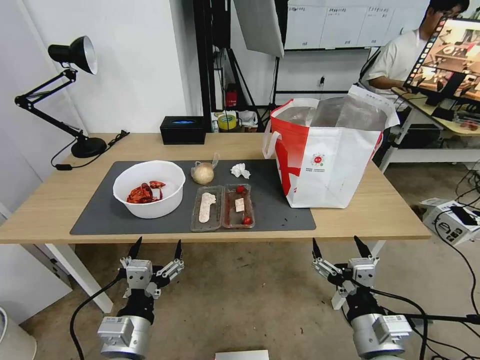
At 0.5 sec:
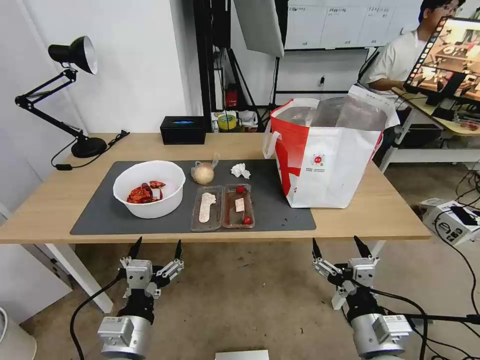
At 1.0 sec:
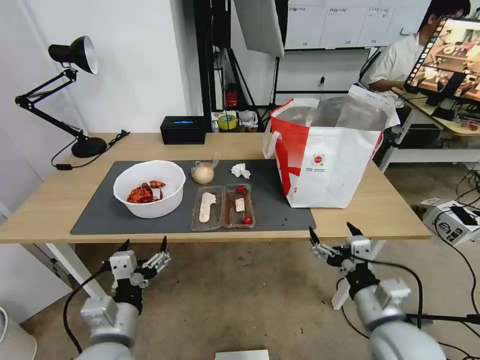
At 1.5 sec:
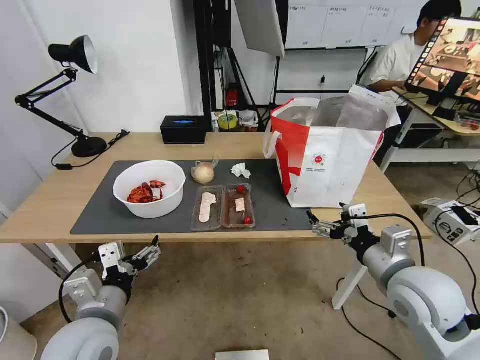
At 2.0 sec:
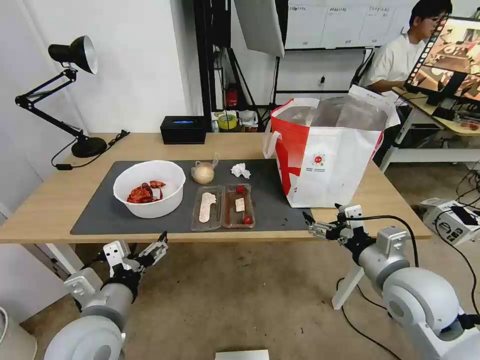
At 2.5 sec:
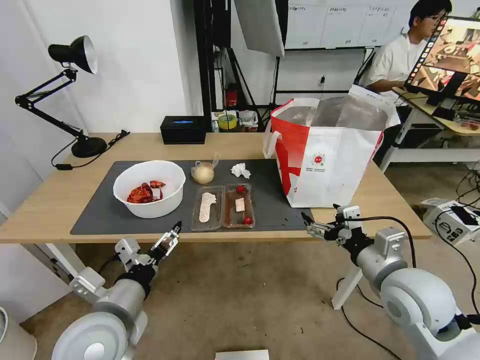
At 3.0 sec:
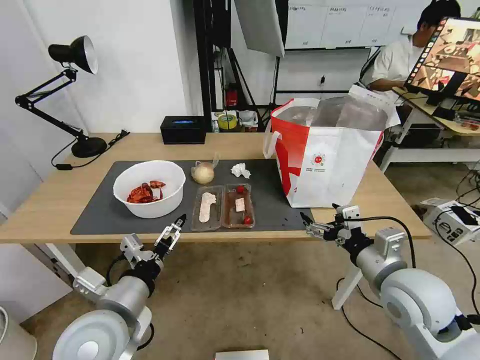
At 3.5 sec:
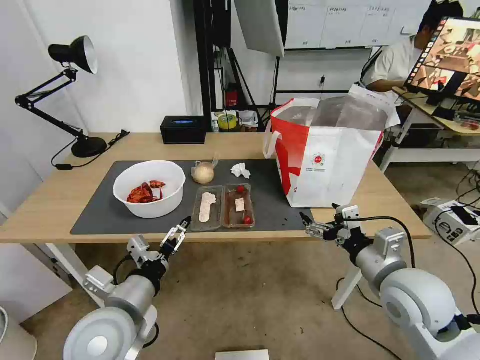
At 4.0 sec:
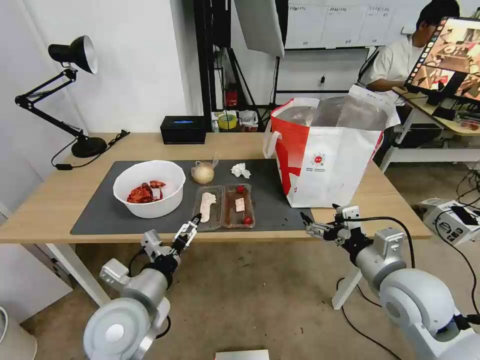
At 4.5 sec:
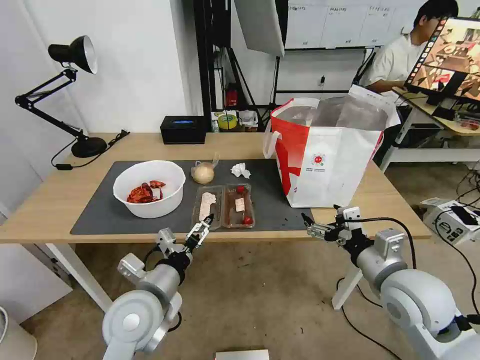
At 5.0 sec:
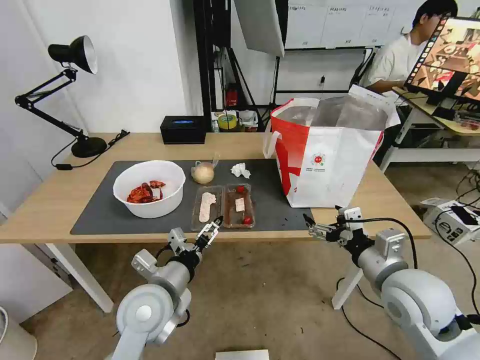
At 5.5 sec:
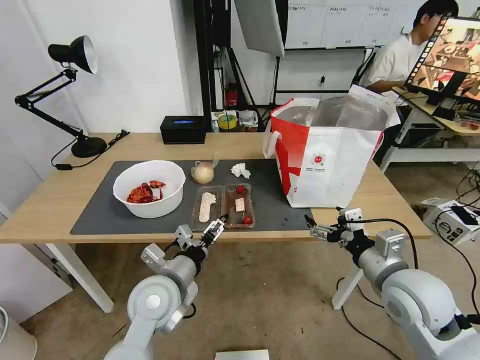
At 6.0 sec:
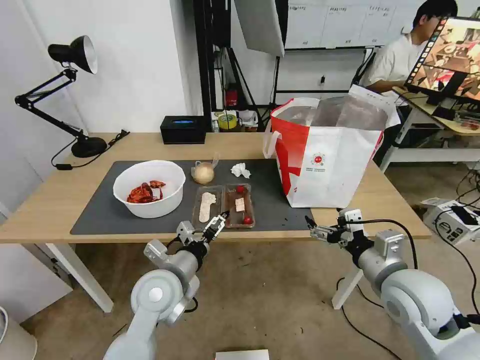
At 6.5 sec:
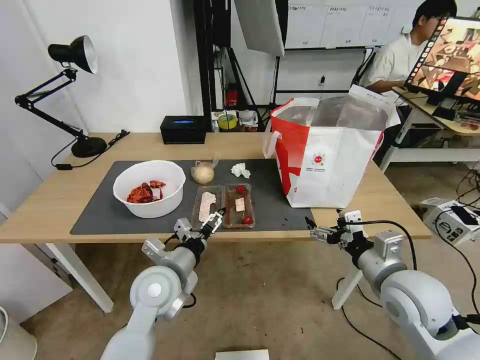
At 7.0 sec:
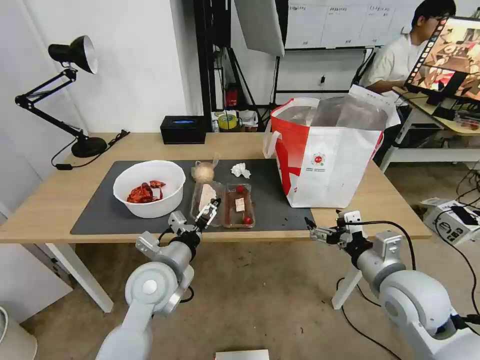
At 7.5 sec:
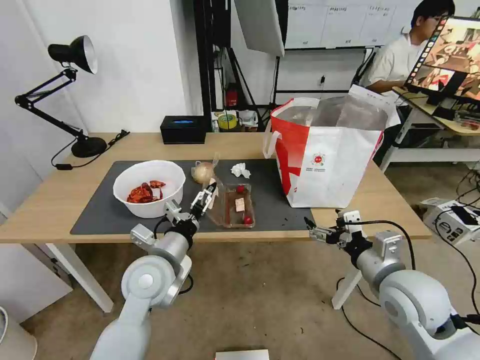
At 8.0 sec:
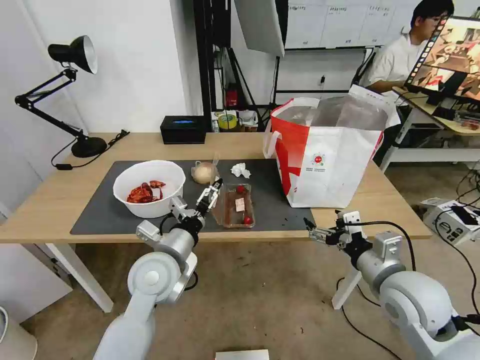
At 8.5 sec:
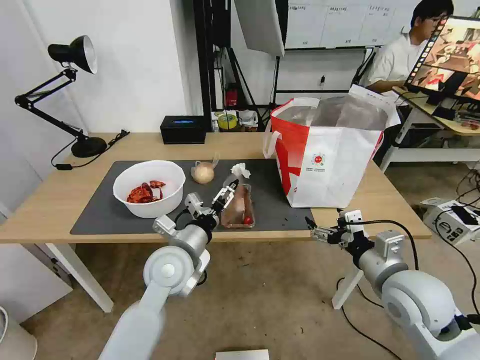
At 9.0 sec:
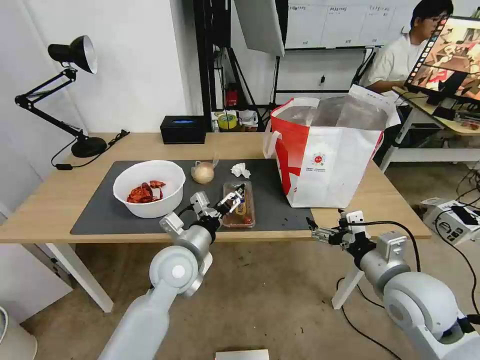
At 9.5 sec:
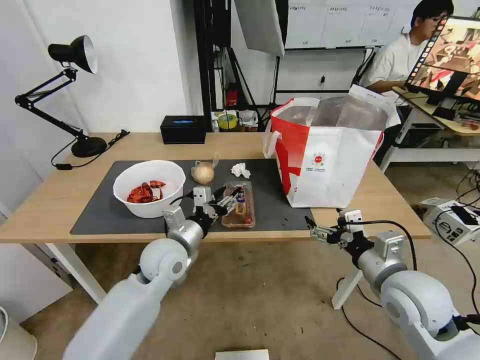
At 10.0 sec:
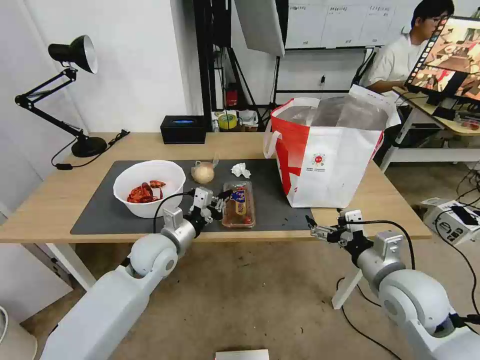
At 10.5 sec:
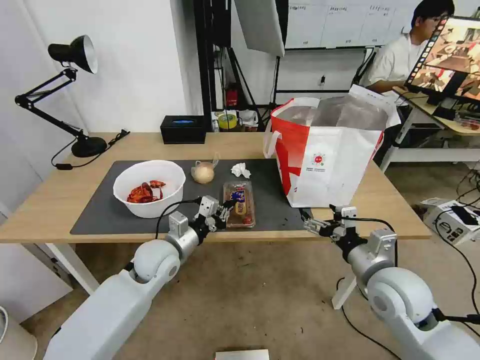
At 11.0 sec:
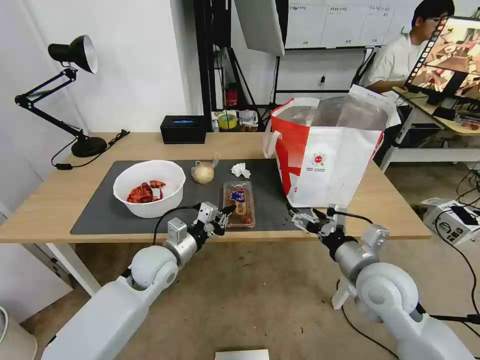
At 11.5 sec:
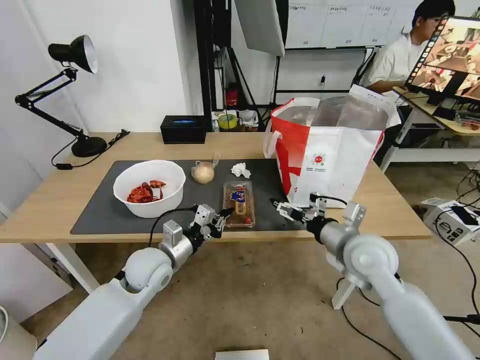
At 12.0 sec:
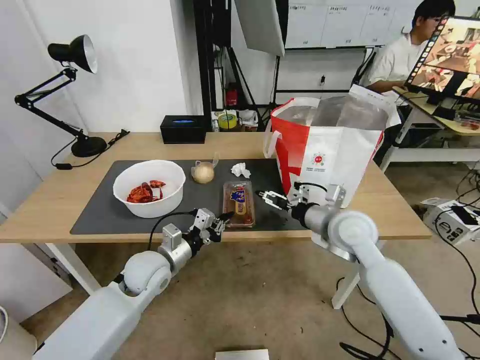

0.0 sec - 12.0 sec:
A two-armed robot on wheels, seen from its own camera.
Task of the whole recording: Pick up the trash from the table and place it into the takeout bag.
4.0 sec - 6.0 sec: The left gripper travels forward by approximately 5 cm.
6.0 sec - 8.0 sec: The grippers move only a little.
8.0 sec - 10.0 sec: The left gripper travels forward by roughly 5 cm, and closes.
10.0 sec - 12.0 sec: The right gripper moves forward and to the left, roughly 15 cm.

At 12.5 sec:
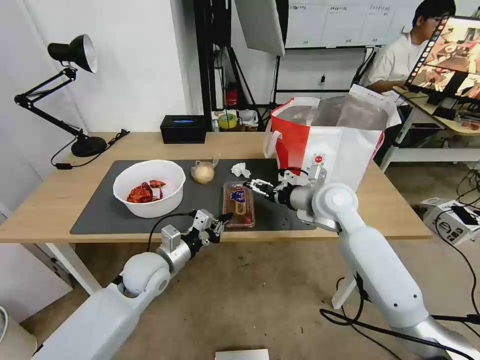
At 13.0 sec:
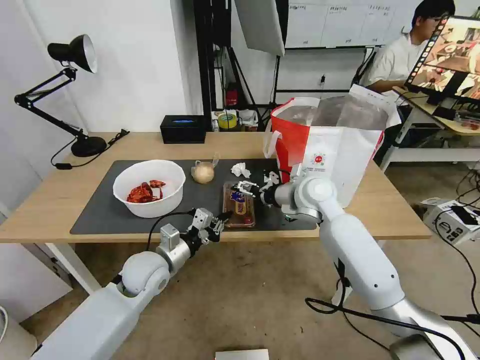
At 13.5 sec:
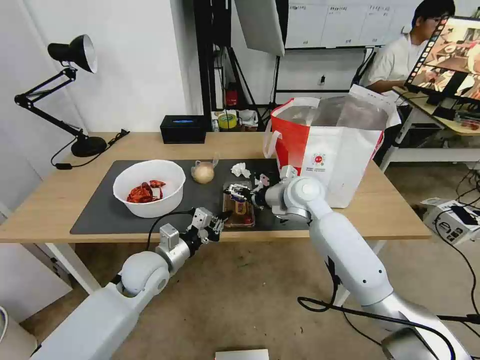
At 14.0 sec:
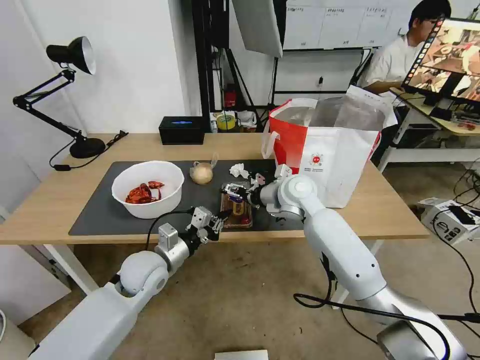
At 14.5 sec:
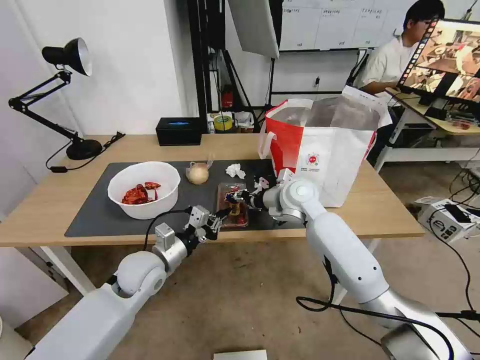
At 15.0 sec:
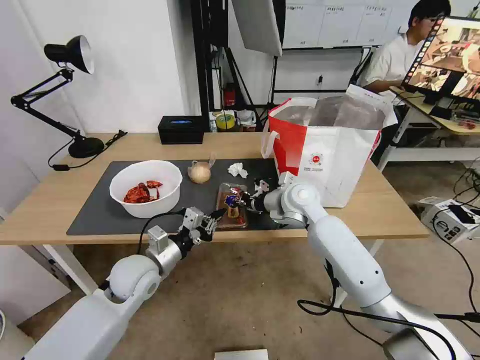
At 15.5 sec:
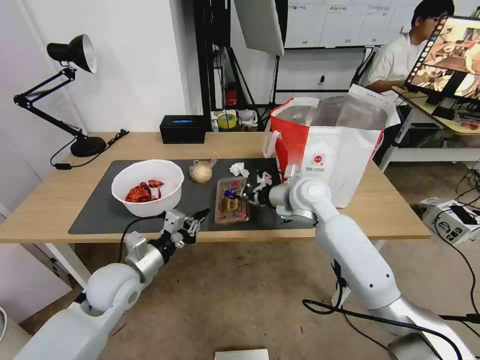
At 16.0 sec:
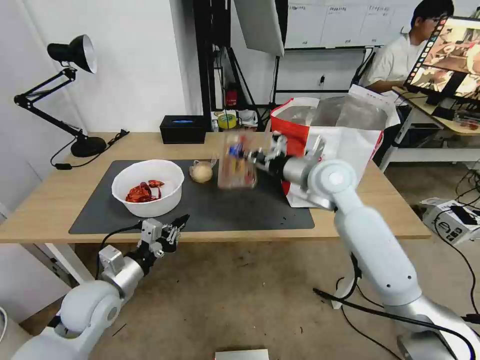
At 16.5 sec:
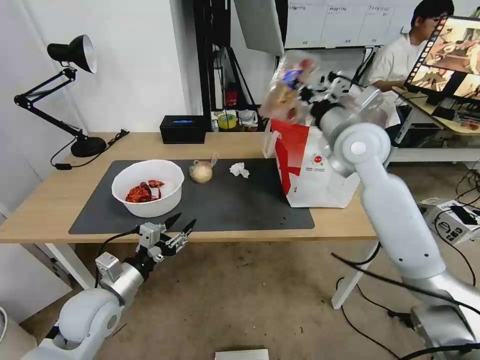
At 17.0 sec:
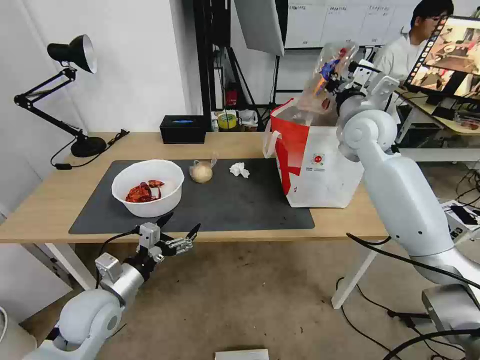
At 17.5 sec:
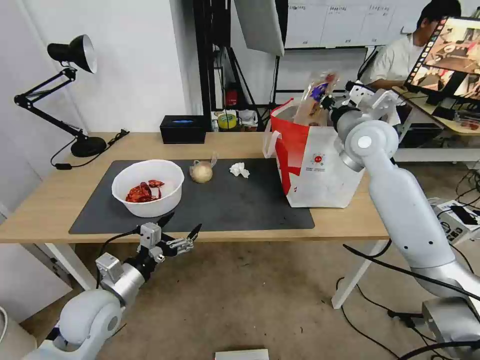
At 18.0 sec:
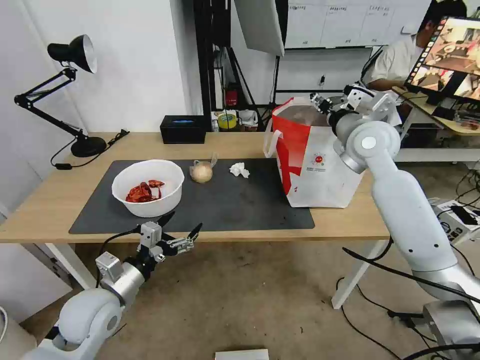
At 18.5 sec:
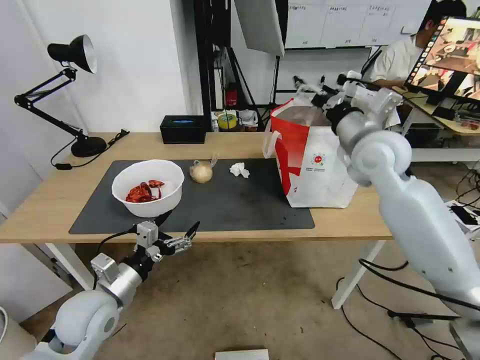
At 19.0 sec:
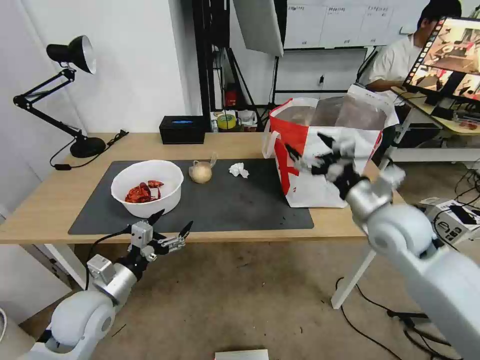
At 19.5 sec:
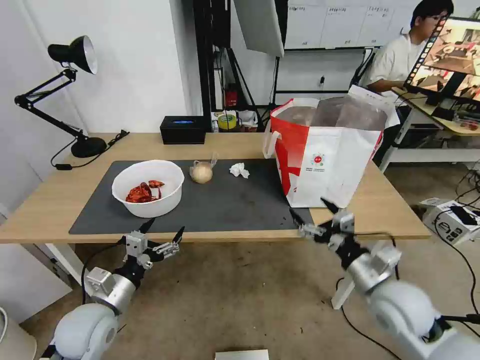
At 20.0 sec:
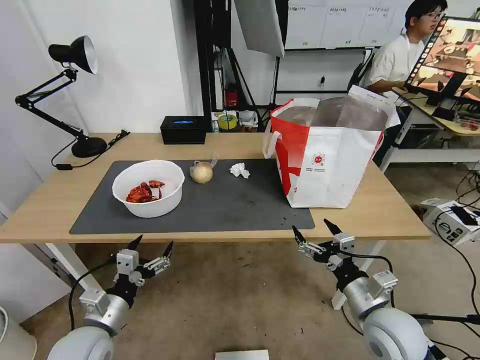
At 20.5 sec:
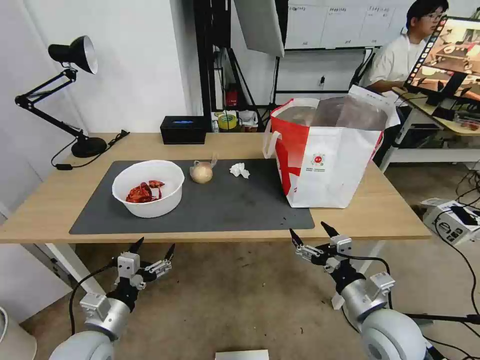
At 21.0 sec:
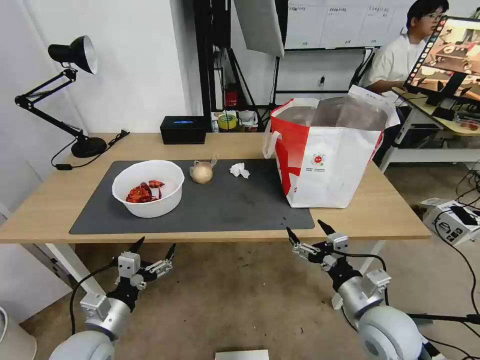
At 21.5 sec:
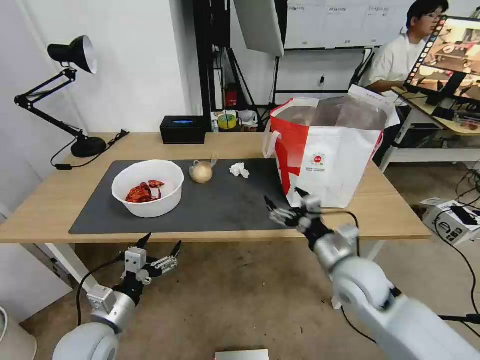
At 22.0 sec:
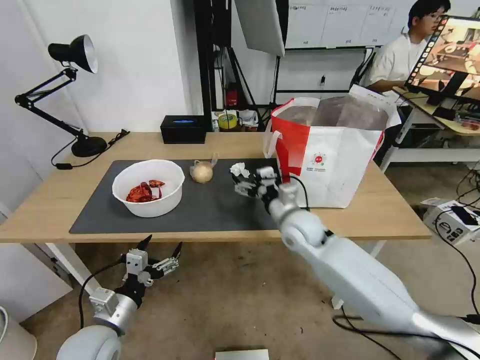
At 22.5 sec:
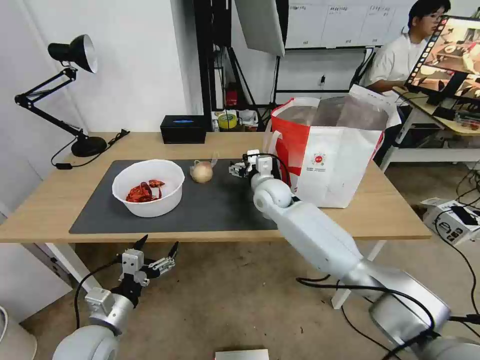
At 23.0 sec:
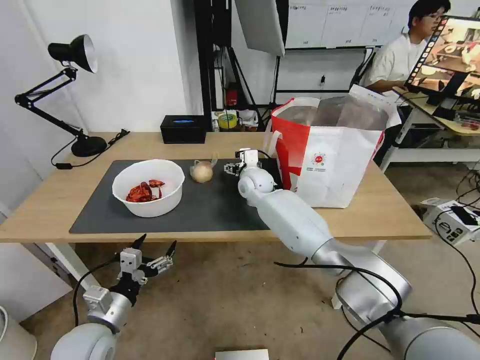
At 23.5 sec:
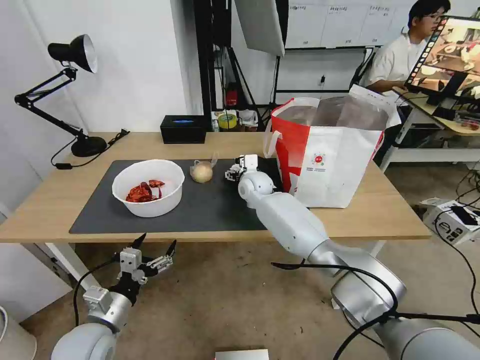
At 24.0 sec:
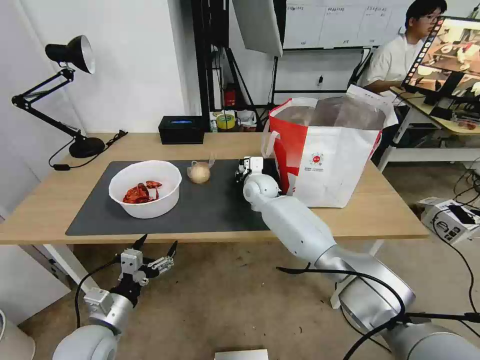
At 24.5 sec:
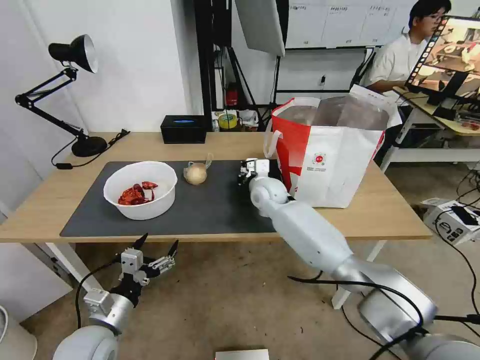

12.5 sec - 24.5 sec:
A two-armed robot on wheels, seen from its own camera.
Task of the whole recording: Pick up the trash from the table and place it into the takeout bag.
12.5 sec - 14.5 sec: The right gripper goes roughly 5 cm to the left, and closes up.
14.5 sec - 16.5 sec: The left gripper travels backward and to the left by approximately 10 cm, and opens; the right gripper heads upward and to the right, covering about 20 cm, and closes its fingers.
16.5 sec - 18.5 sec: The left gripper opens, while the right gripper opens up.
18.5 sec - 20.5 sec: The left gripper travels backward by roughly 5 cm. Meanwhile the right gripper travels backward and downward by roughly 35 cm.
20.5 sec - 22.5 sec: The right gripper shifts about 35 cm forward and to the left.
22.5 sec - 24.5 sec: The right gripper closes its fingers.

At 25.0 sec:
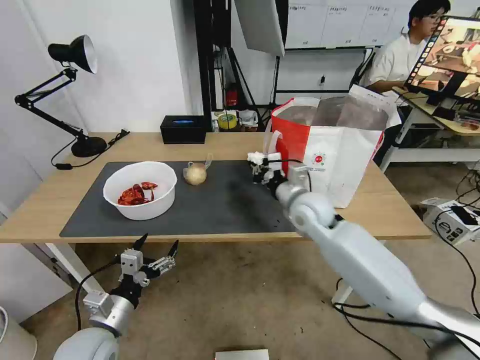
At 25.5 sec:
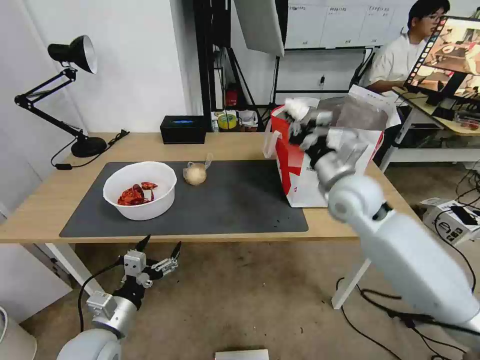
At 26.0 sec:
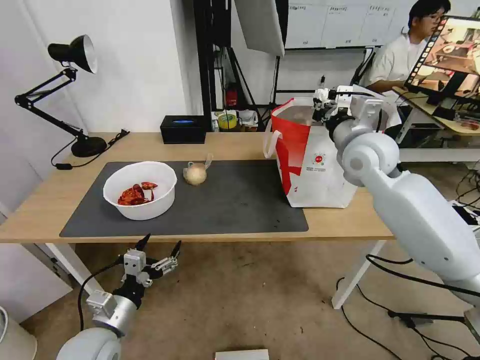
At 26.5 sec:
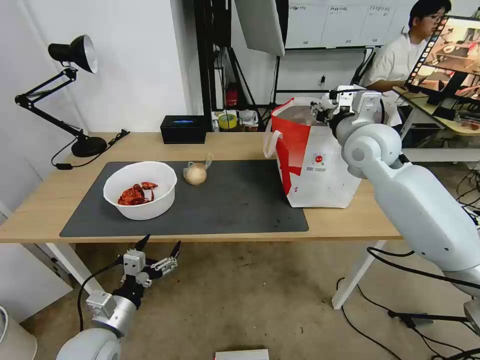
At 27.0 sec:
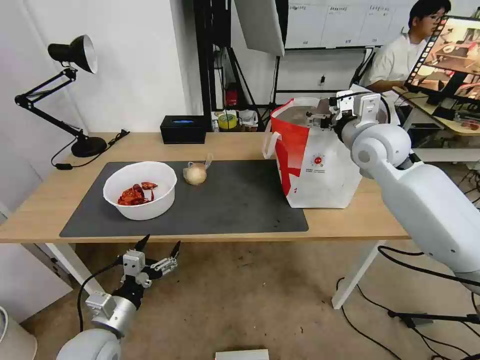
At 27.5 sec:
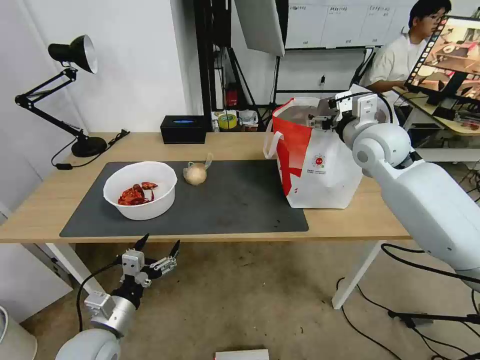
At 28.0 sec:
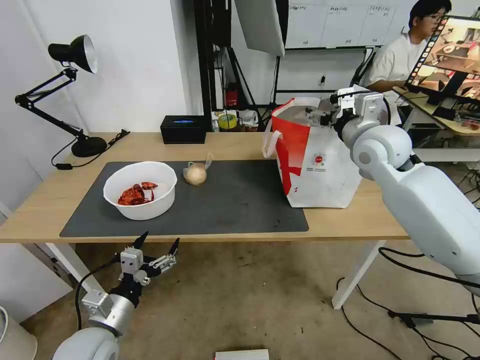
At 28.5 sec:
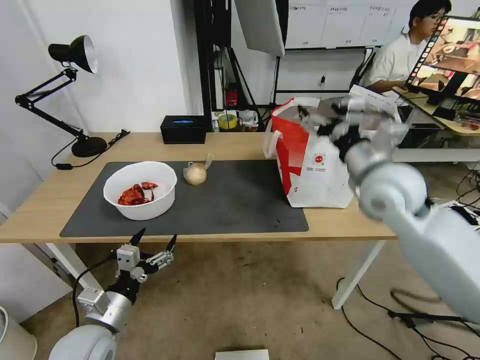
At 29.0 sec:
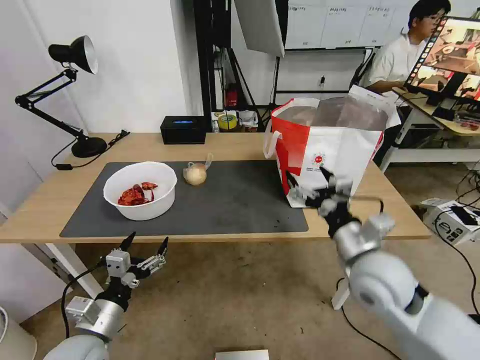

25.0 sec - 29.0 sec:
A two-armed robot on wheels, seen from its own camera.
Task of the whole recording: Pick up the trash from the table and place it into the takeout bag.
25.0 sec - 27.0 sec: The right gripper is displaced upward and to the right by some 20 cm, and opens its fingers.
27.0 sec - 29.0 sec: The right gripper goes approximately 25 cm backward and downward.
